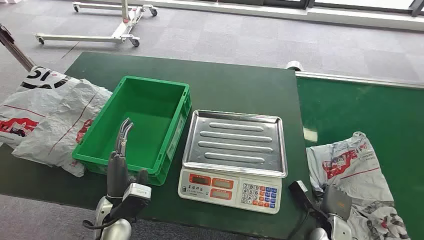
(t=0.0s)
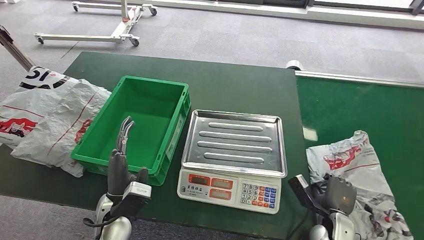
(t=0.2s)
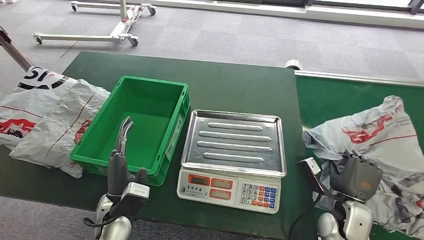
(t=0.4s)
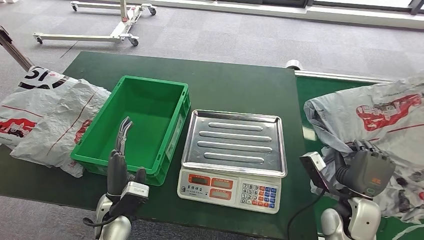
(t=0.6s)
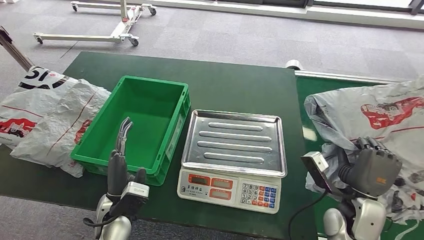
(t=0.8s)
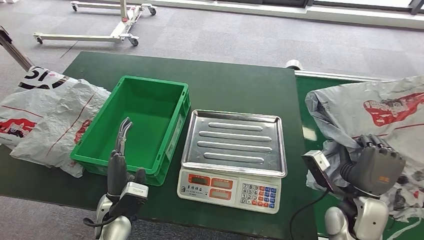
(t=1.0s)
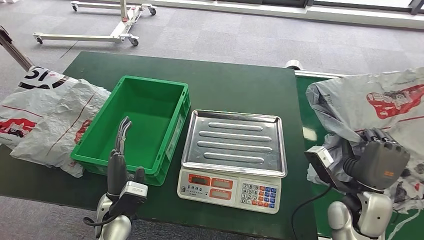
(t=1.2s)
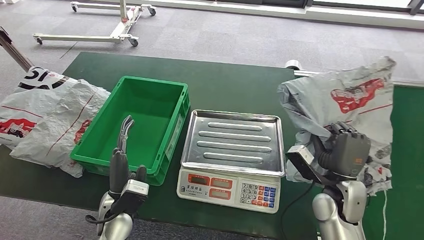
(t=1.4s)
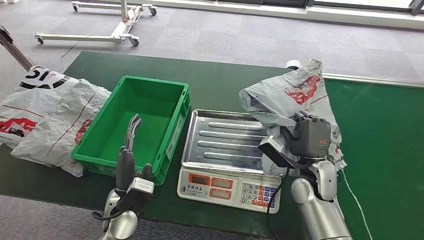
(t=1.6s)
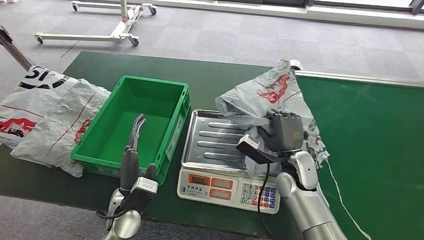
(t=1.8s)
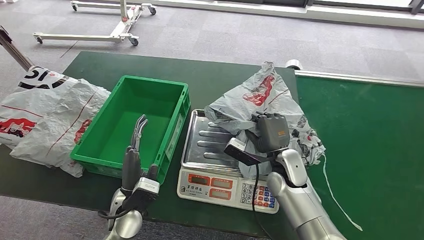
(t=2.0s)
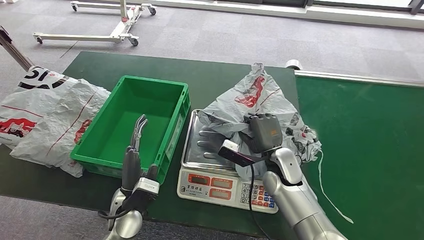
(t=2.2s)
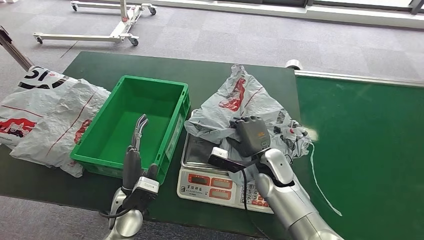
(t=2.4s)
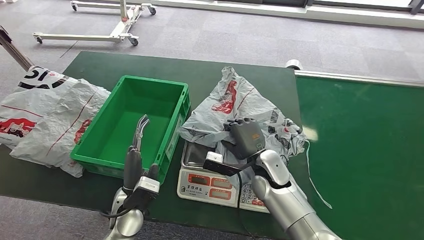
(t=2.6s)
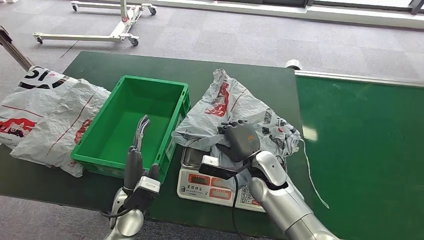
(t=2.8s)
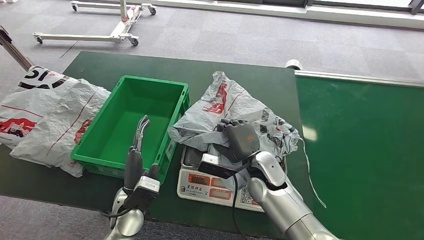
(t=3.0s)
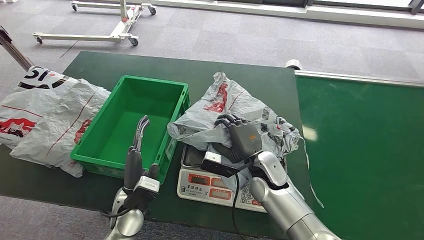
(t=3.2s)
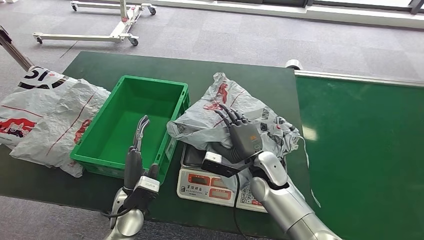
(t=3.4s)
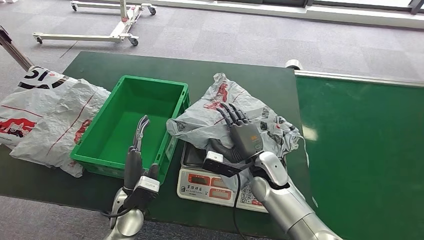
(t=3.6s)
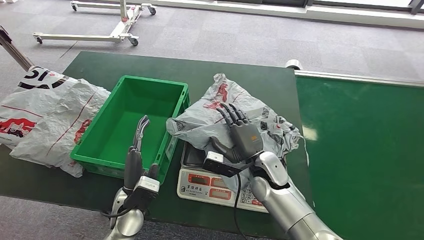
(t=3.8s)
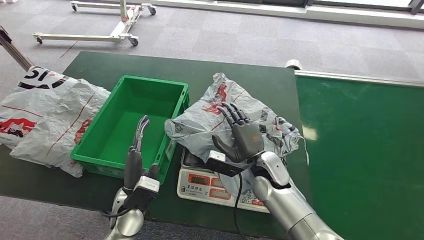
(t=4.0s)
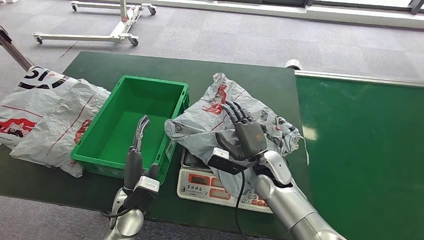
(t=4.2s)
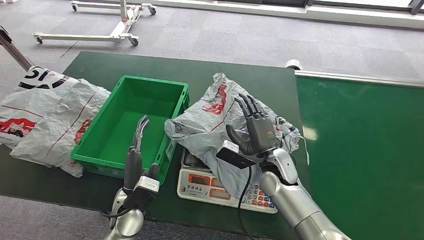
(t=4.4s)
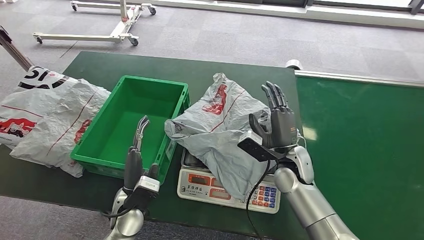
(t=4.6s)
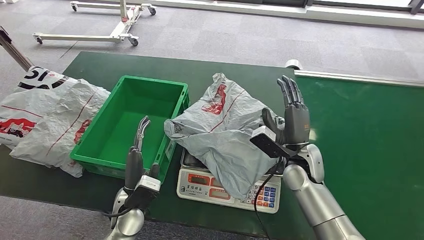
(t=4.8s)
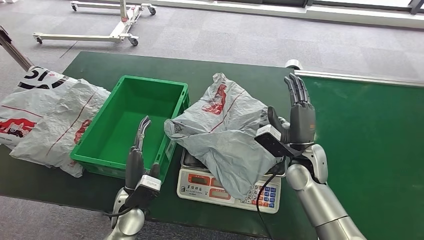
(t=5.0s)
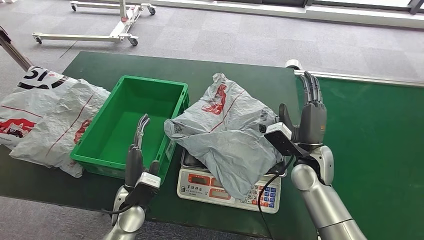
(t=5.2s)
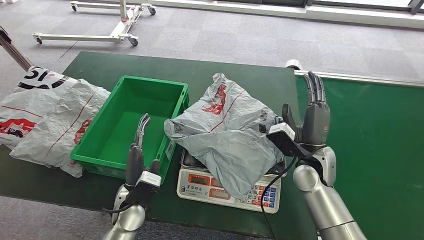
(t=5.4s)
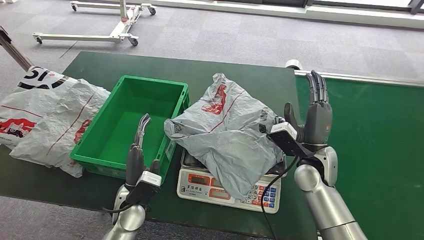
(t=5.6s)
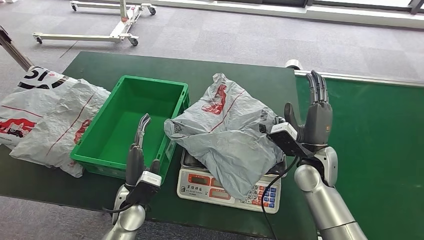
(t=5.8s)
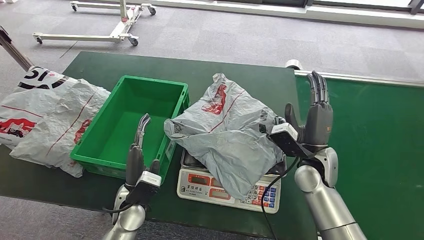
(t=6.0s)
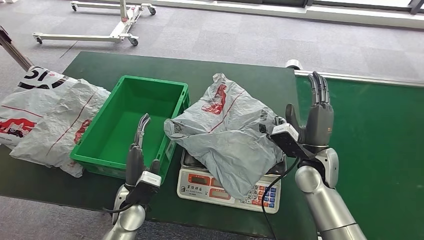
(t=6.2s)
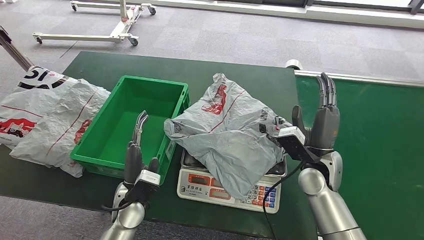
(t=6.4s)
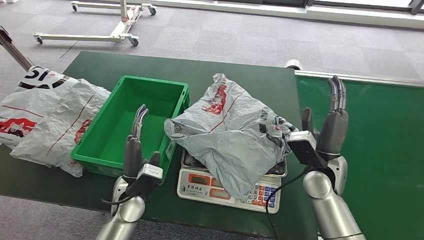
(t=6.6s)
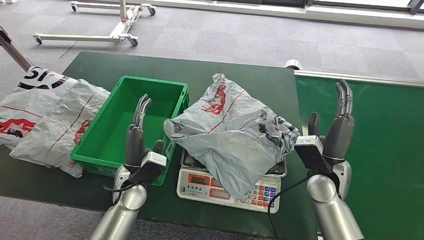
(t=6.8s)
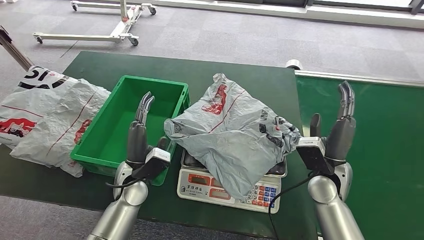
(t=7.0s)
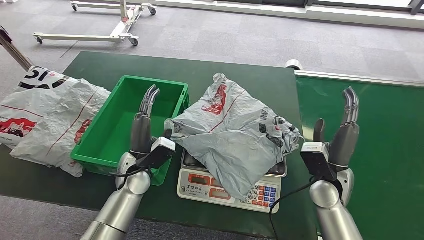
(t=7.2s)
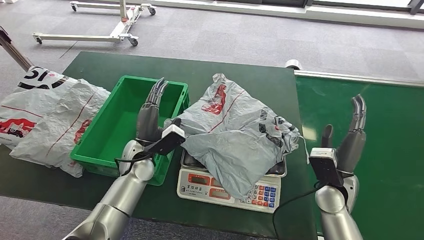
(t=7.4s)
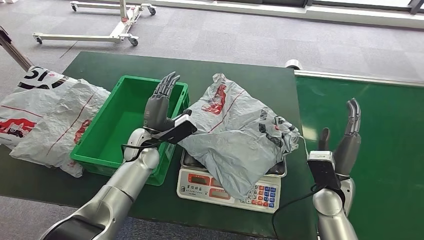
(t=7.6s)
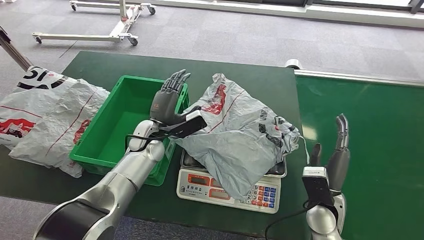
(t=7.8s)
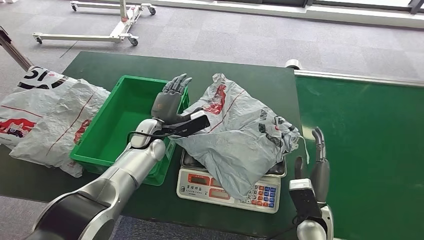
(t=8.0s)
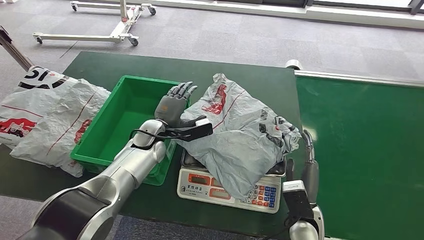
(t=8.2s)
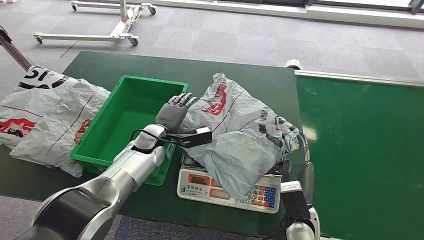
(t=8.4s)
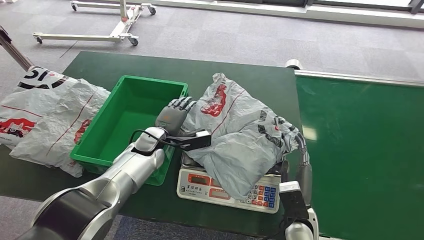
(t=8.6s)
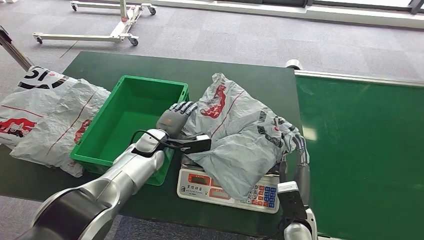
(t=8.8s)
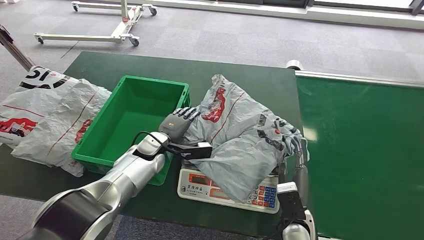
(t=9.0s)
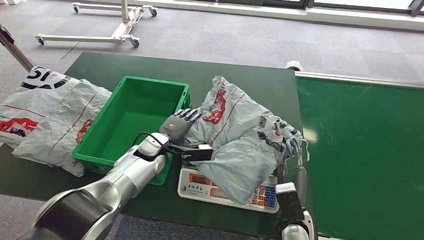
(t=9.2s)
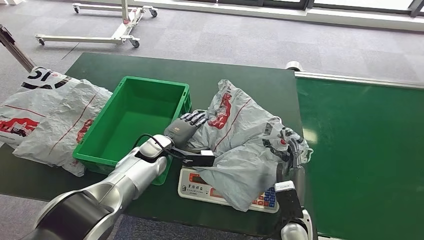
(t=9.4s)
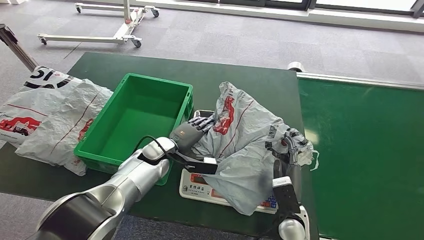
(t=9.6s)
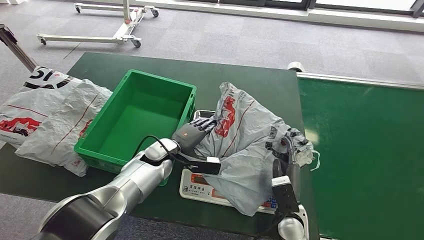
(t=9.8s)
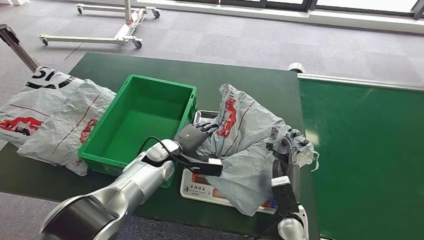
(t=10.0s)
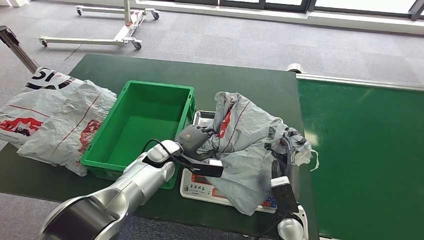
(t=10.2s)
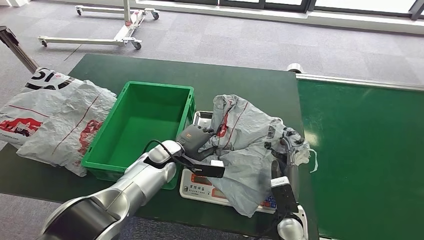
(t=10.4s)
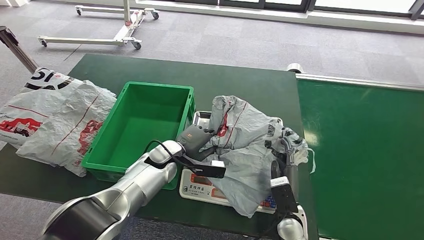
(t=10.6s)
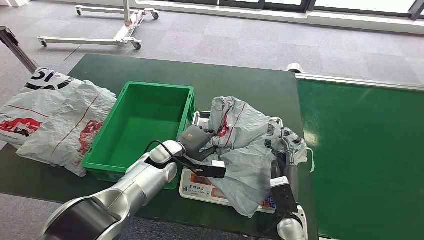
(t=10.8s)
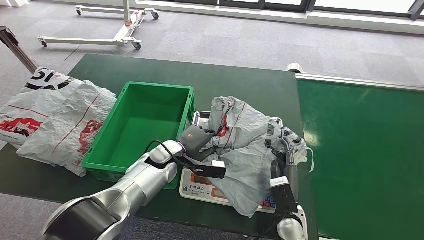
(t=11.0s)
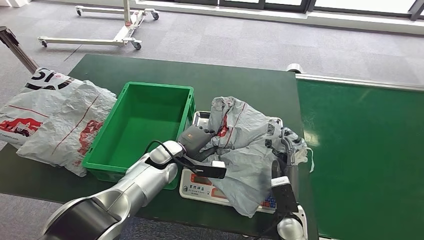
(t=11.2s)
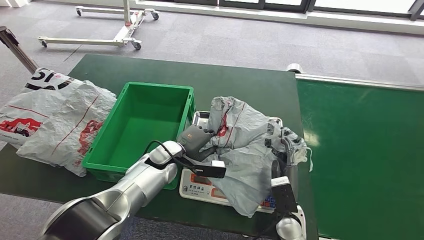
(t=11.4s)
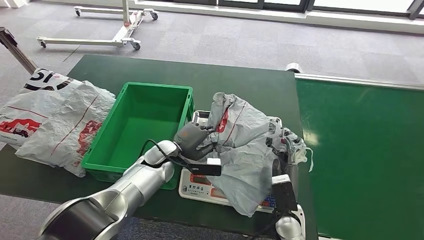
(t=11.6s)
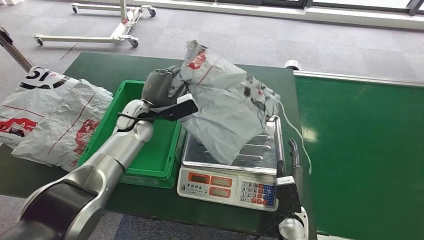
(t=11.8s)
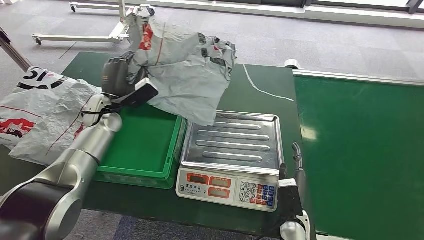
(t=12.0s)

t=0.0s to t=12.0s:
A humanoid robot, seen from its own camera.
Step, t=0.0s to t=0.6s: Pick up the package from the conveyor belt.
Step, t=1.0s to t=4.2s: Place the package onto the inbound machine.
Step, t=9.8s to t=11.8s: Pick up the package from the inbound machine.
t=3.0s to t=4.4s: The hands stay close to where they were, moving slightly.
t=4.4s to t=6.0s: The right hand is displaced to the right by about 10 cm.
t=6.0s to t=7.6s: The left hand travels forward by roughly 15 cm. The right hand is displaced backward by some 5 cm.

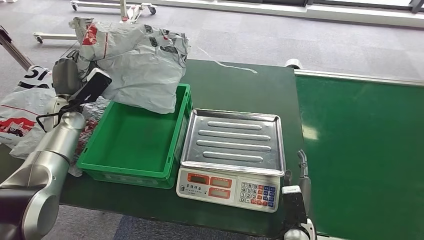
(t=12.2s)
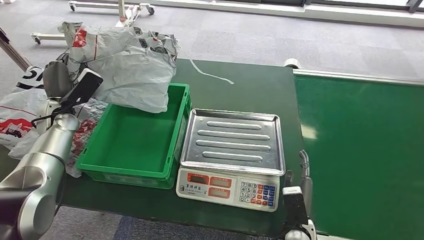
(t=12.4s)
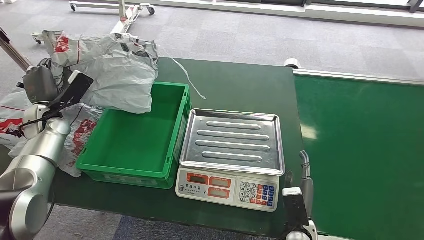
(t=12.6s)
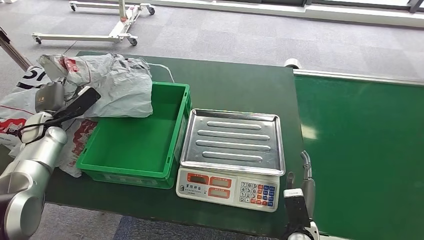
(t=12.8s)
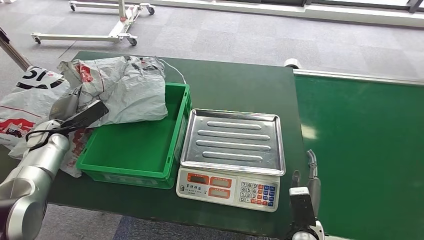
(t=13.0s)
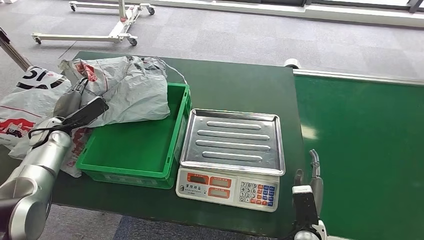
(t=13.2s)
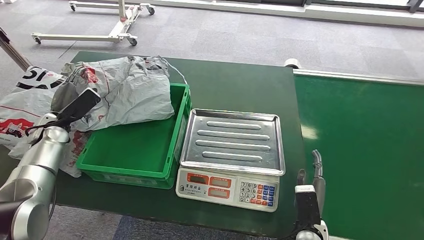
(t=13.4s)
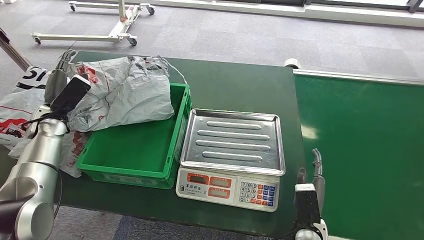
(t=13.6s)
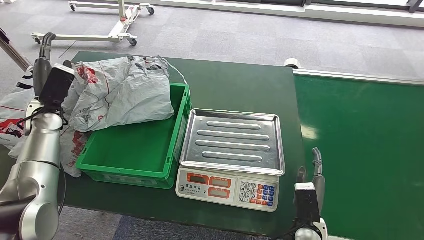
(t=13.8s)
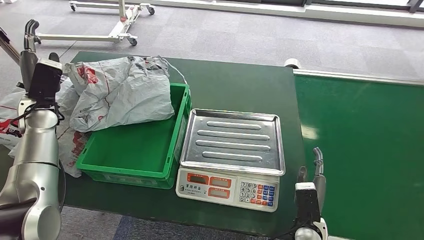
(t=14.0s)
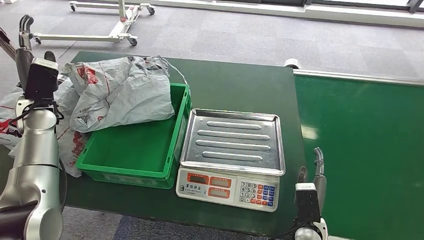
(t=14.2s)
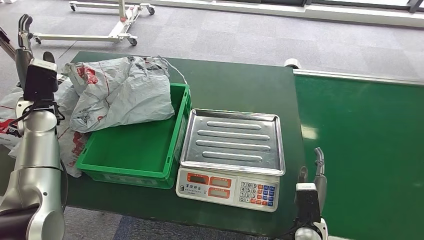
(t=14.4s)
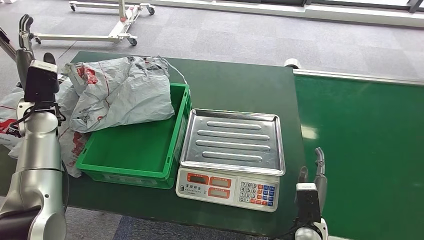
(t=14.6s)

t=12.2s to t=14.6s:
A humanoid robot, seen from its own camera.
Step, t=12.2s to t=14.6s: Place the package into the parcel locker.
t=12.2s to t=13.4s: The left hand moves to the left, roughly 5 cm.
t=13.4s to t=14.6s: The left hand shifts roughly 10 cm upward.
